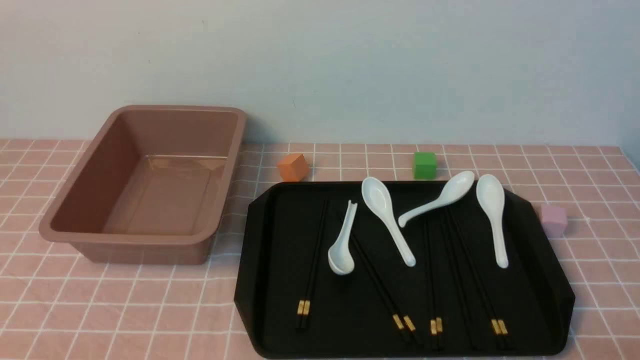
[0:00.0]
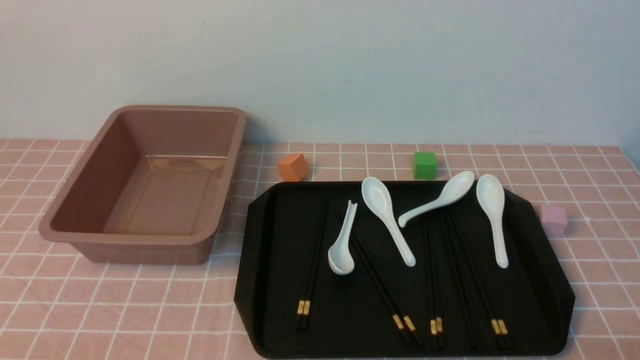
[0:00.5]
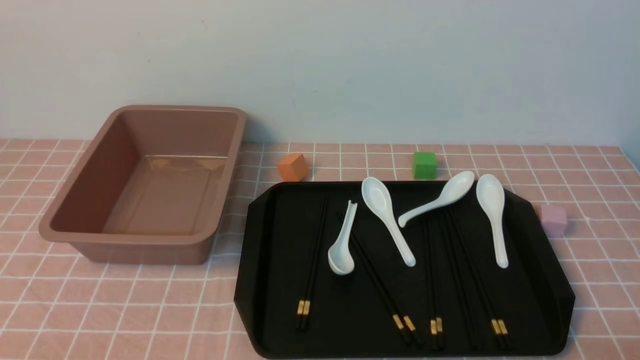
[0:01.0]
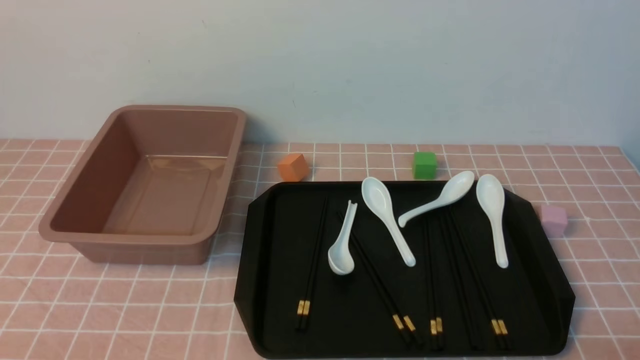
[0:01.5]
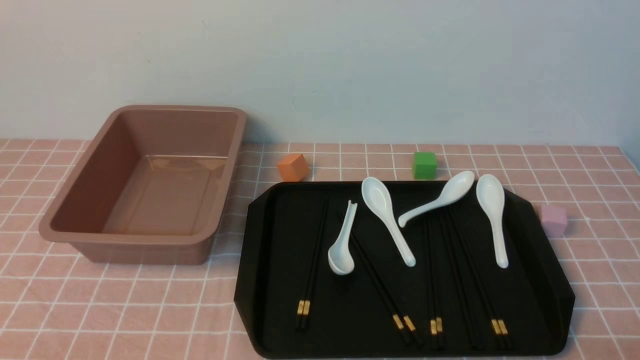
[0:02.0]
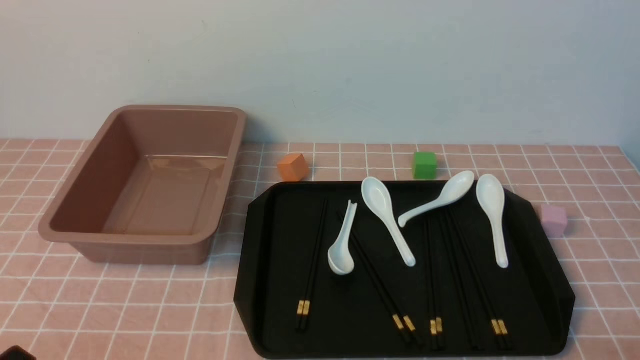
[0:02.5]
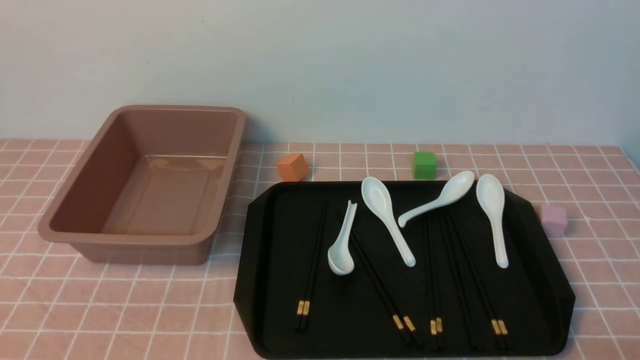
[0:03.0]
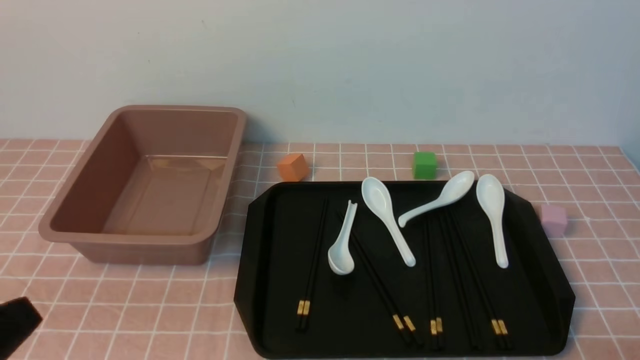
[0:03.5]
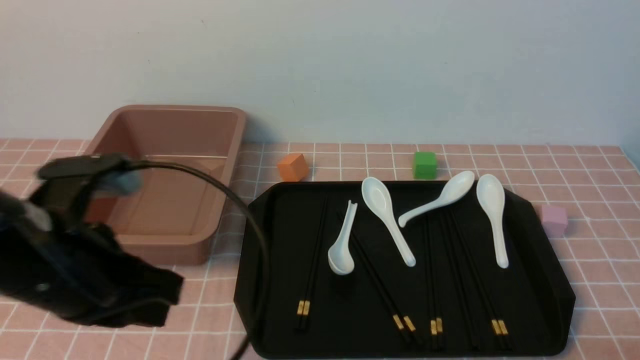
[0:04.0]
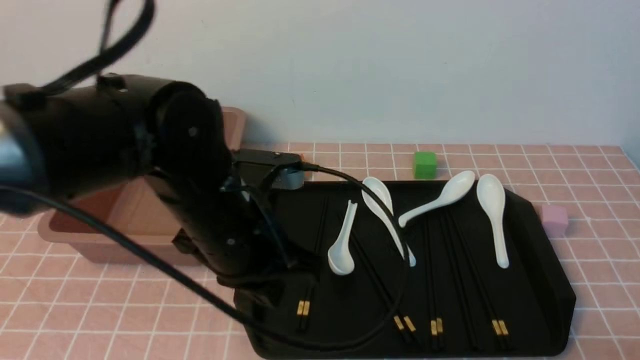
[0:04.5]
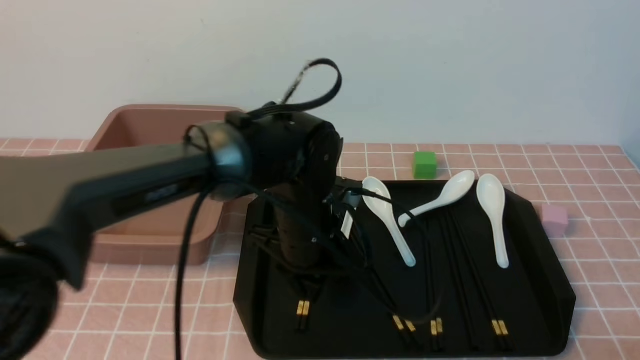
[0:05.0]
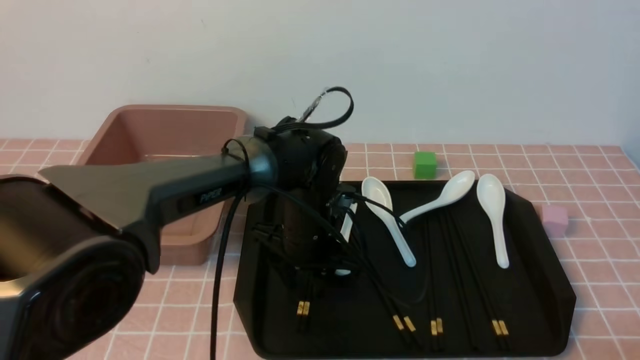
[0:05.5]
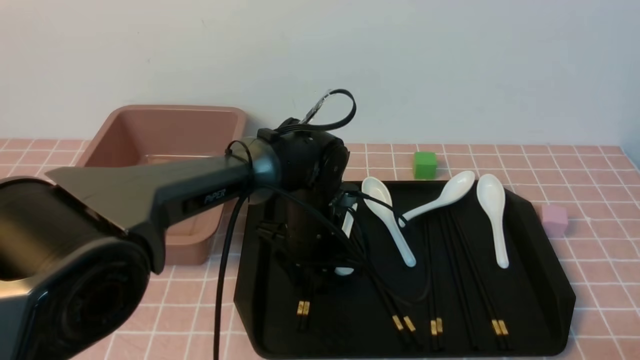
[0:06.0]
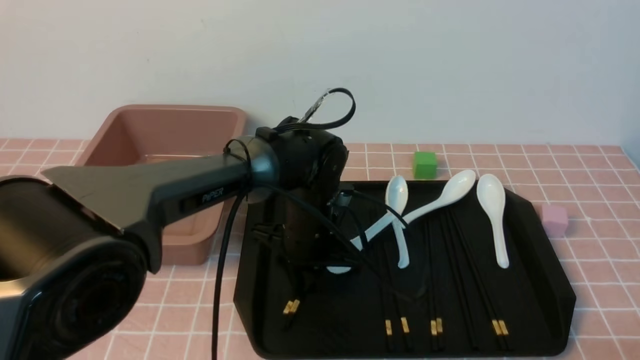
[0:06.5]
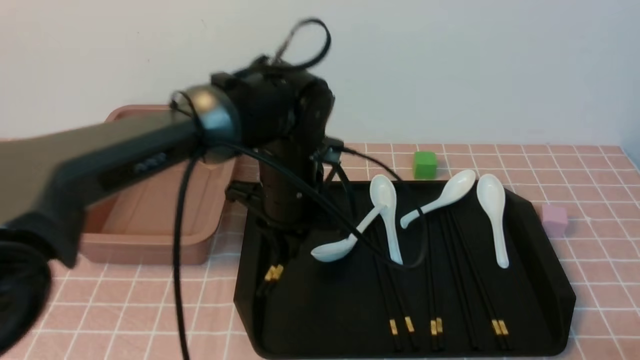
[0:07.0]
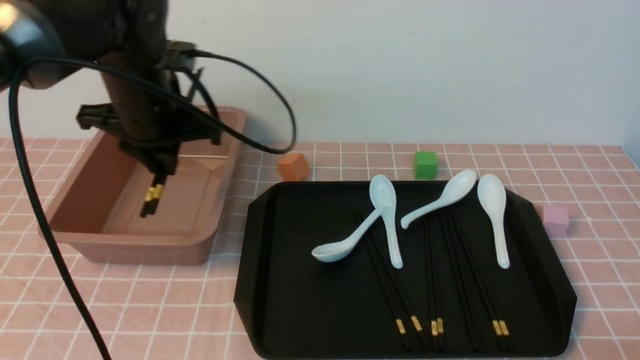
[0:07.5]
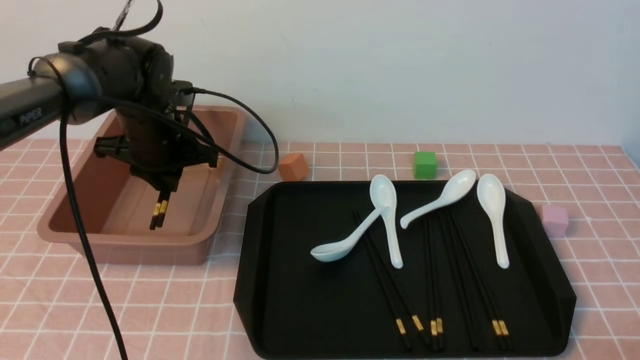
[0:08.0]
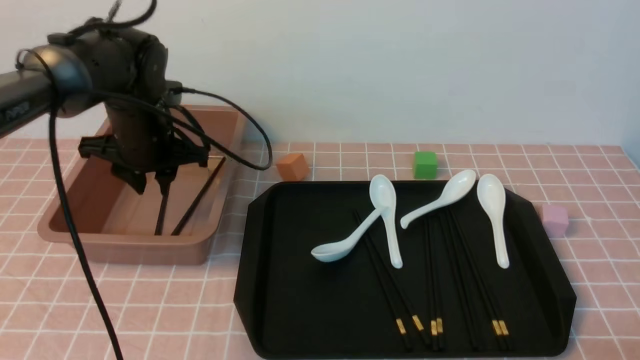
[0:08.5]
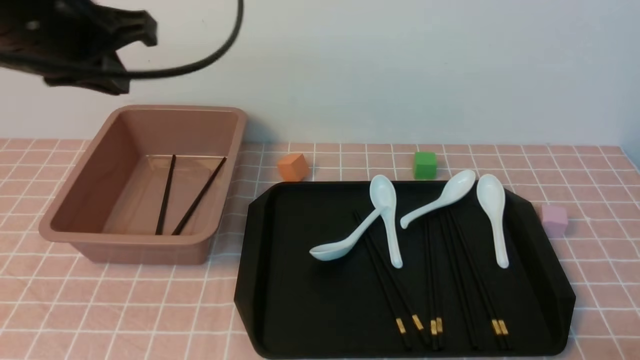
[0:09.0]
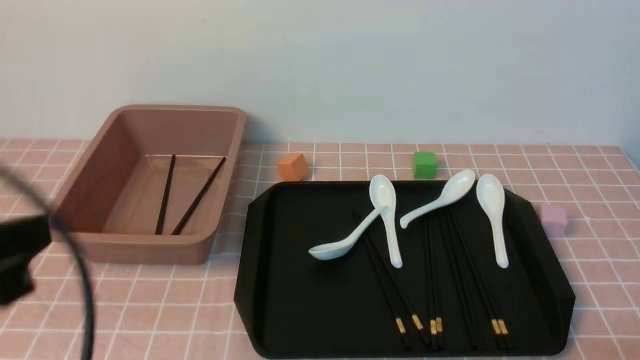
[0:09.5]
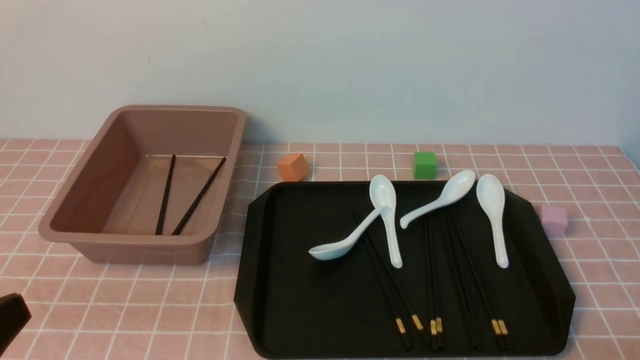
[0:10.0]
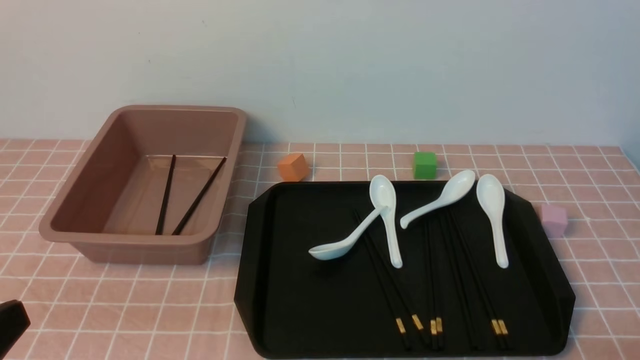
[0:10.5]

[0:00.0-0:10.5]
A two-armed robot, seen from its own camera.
Step, 0:00.0 to 0:06.5: use the left arm to grab a pair of chopsticks.
Step, 0:07.0 to 0:08.5: use the left arm to put the chopsticks into the lunch box.
0:00.0 to 0:02.0: Neither gripper changes place.
0:02.0 to 0:04.0: The left gripper goes about 20 cm forward, upward and to the right, and closes.
0:04.0 to 0:06.5: The left gripper heads forward, to the right and downward, covering roughly 25 cm, and opens its fingers.
0:06.5 to 0:08.5: The left gripper goes about 20 cm to the left and upward.
0:08.5 to 0:10.5: The left gripper shifts about 35 cm backward, and closes its fingers.

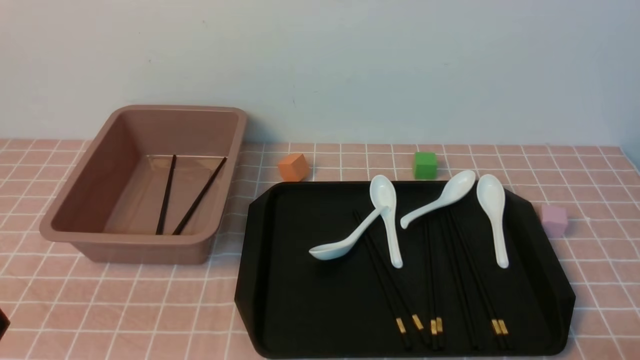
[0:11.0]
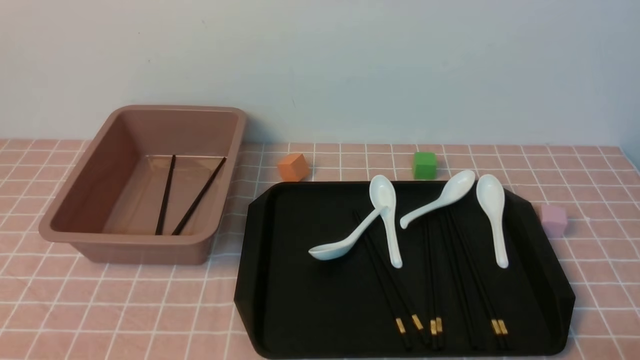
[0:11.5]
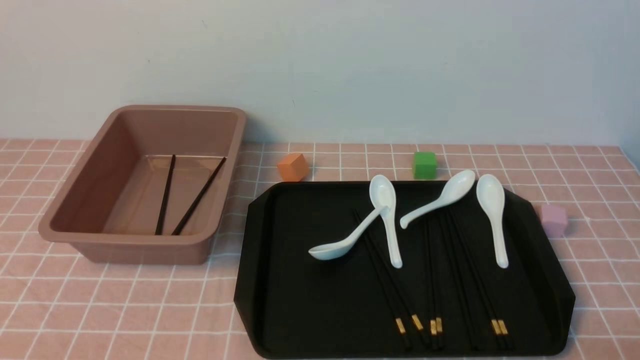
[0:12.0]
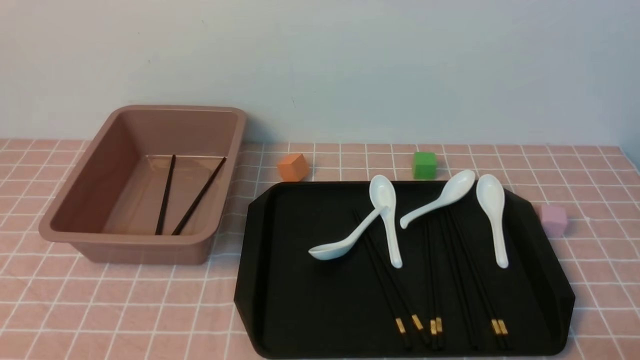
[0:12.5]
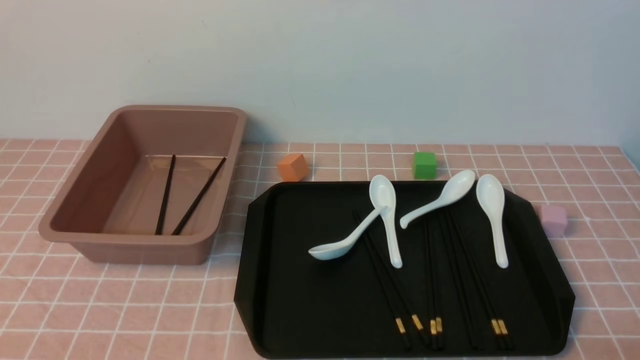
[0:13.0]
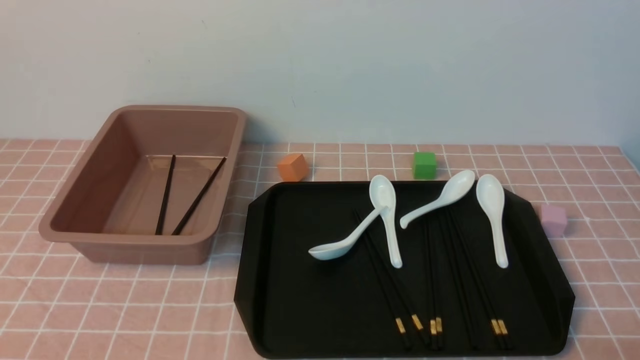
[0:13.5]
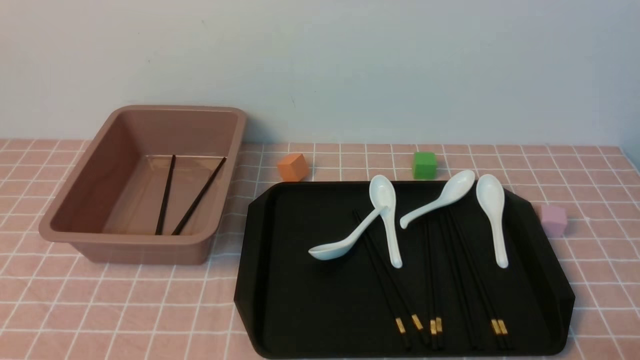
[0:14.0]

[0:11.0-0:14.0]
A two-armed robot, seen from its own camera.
0:12.5 to 0:14.0: Neither gripper changes place.
